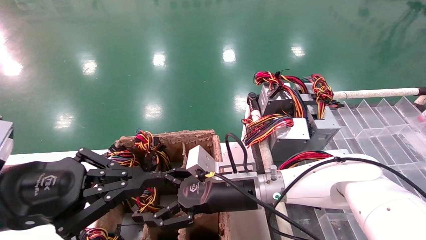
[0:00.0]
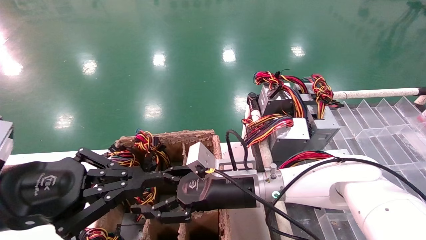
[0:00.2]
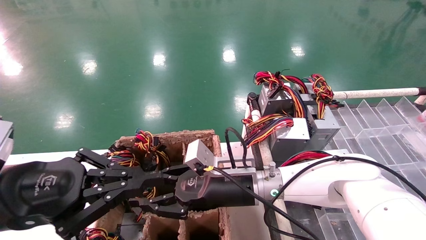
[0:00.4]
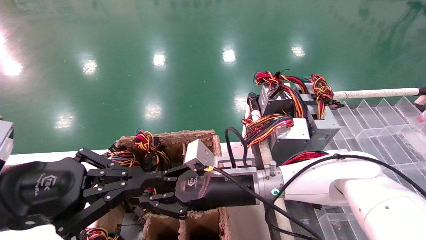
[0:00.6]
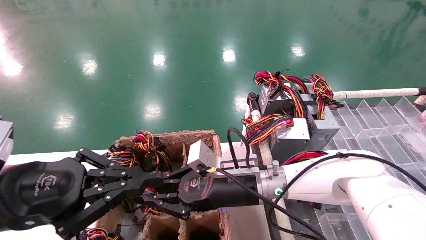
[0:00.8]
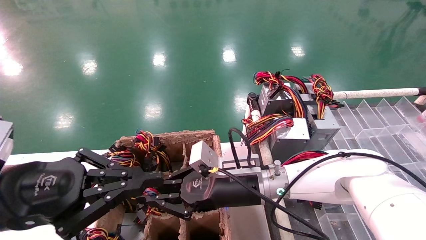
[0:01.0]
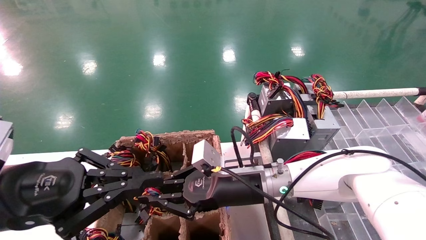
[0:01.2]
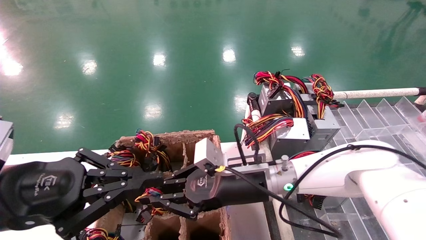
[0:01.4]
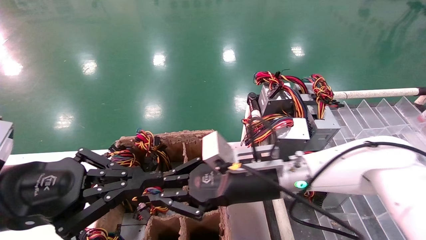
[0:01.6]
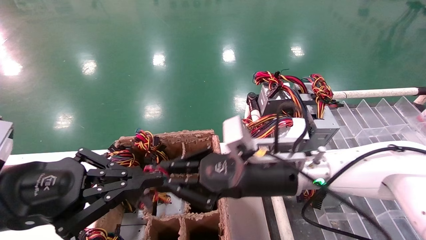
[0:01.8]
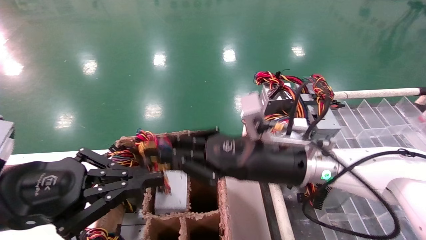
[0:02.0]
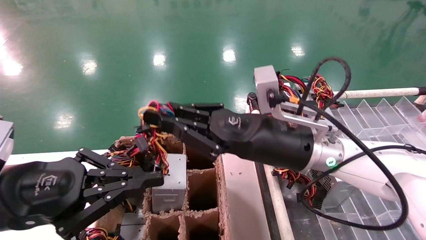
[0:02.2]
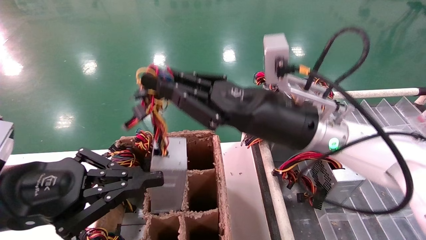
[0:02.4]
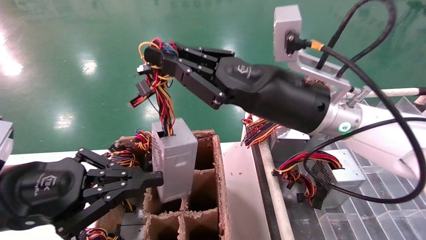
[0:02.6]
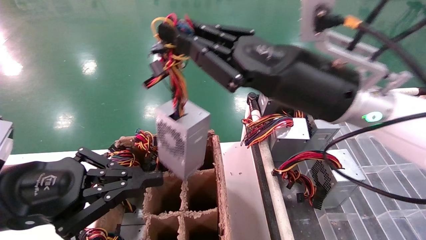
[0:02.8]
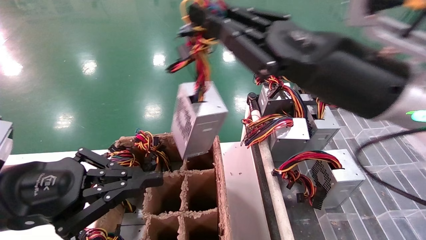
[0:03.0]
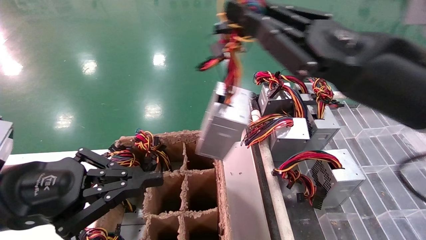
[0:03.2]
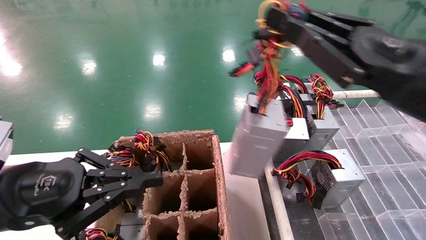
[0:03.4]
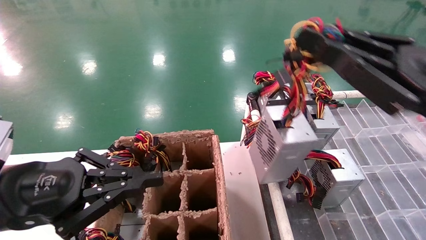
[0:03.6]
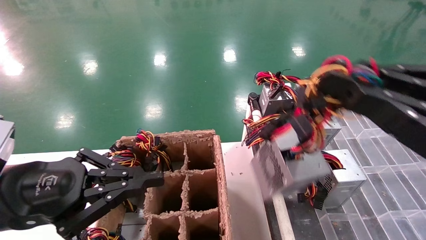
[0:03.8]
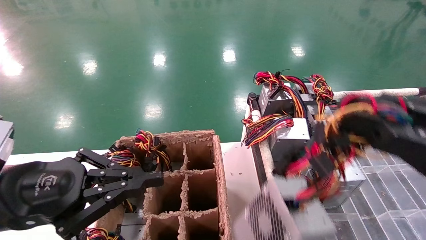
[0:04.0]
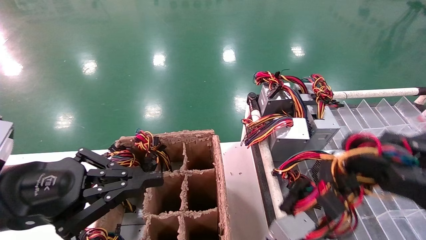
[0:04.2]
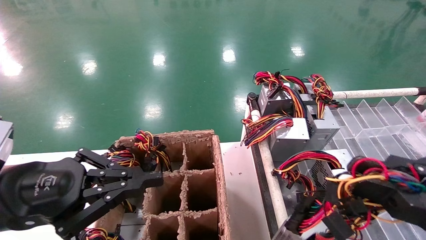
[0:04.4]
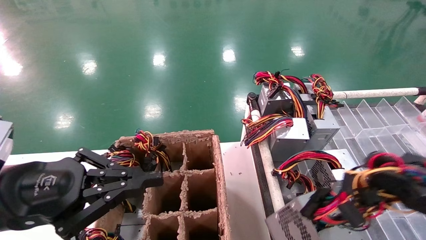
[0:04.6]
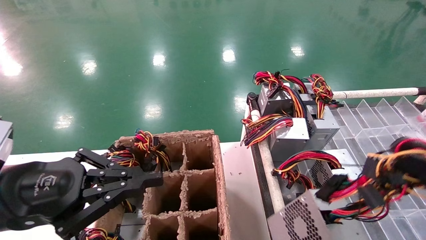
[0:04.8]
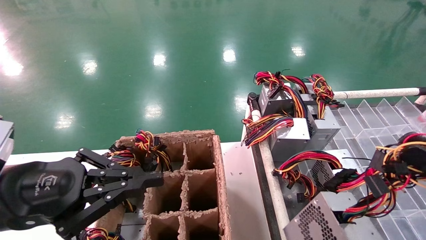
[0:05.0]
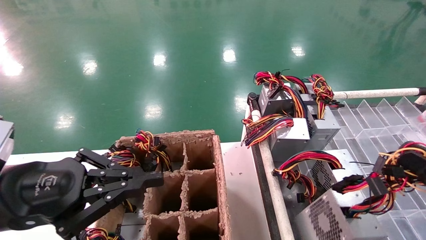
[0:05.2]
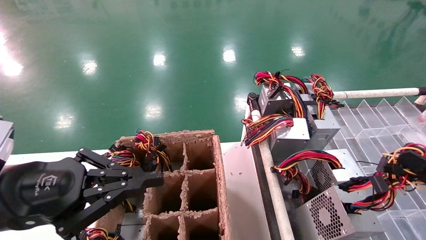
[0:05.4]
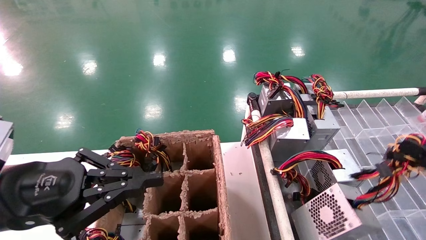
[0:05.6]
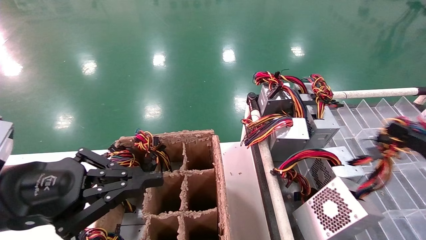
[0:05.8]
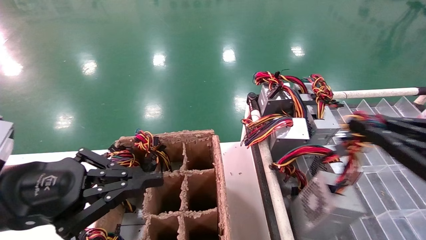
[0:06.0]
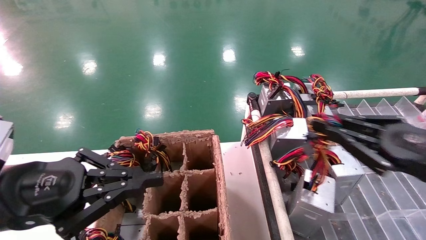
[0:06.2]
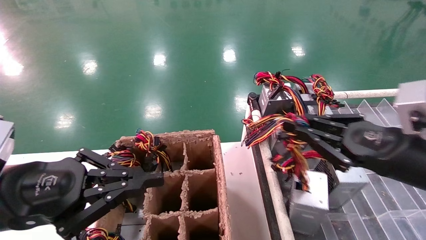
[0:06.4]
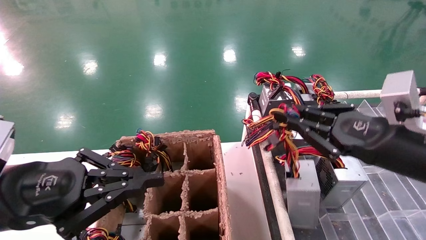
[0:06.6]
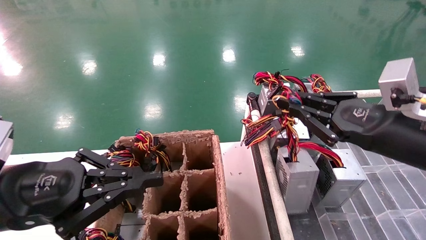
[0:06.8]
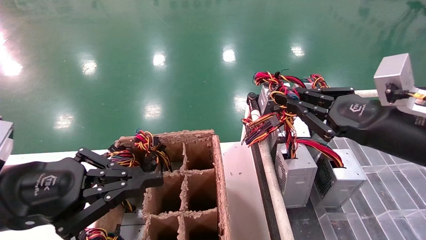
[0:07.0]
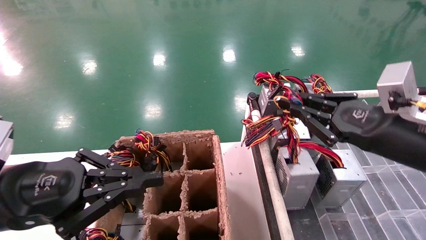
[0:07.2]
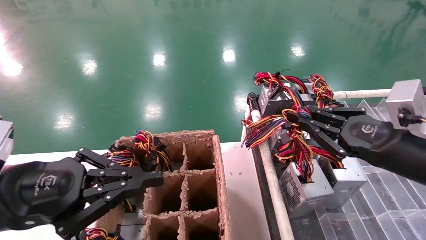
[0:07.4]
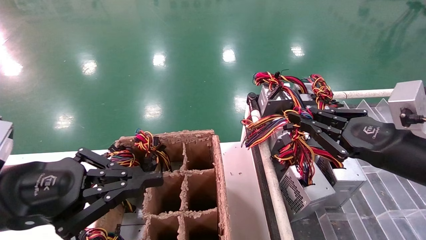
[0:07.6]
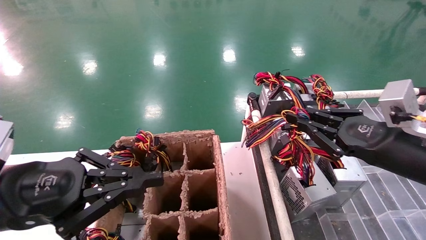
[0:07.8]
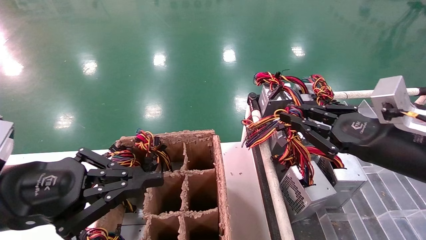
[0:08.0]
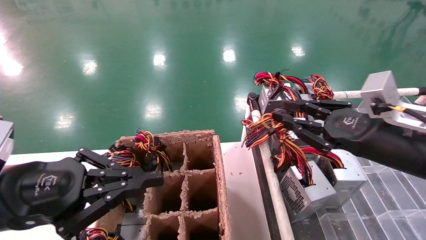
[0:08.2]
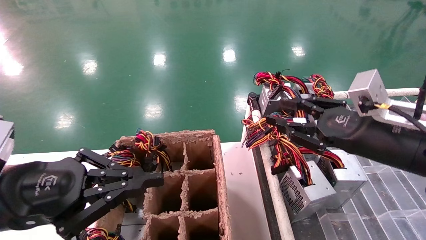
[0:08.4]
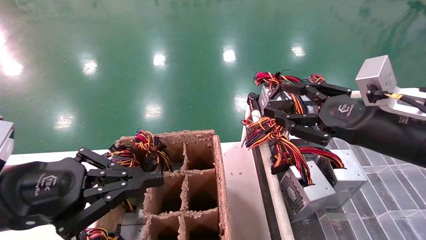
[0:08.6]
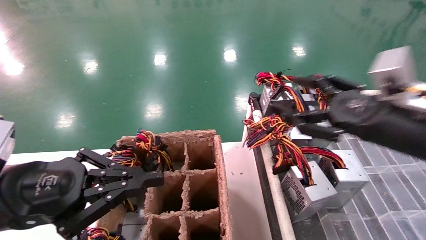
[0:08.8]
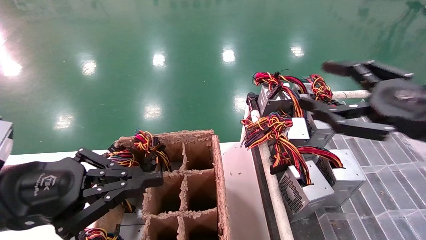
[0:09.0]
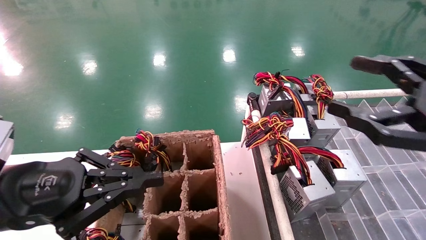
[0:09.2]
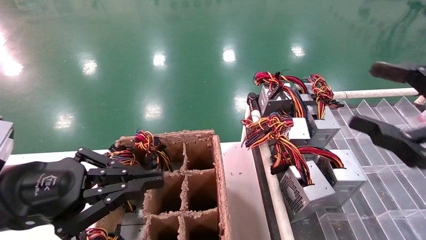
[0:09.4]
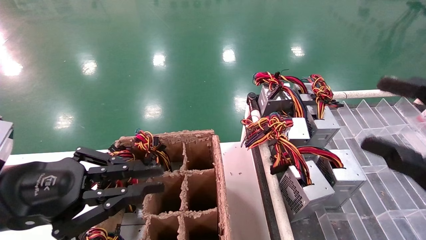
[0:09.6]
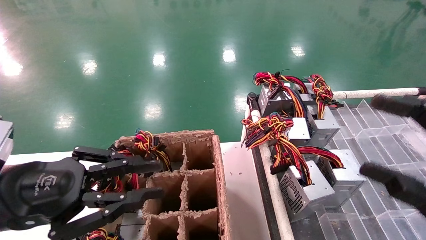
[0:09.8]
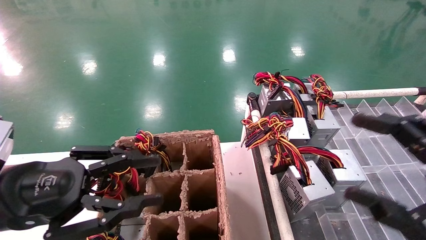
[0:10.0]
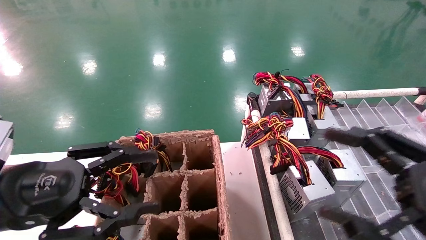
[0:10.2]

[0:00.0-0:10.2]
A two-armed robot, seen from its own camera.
Step, 0:01.0 to 0:08.0: Place the main unit power supply in the designated area.
0:00.0 to 0:01.4: The right gripper closes up.
0:01.4 to 0:03.0: The right gripper shifts some 20 cm upward, to the right and backward.
0:03.0 to 0:04.4: The right gripper goes some 25 cm backward, to the right and downward.
0:04.4 to 0:05.8: The right gripper goes roughly 5 cm to the right.
0:05.8 to 0:07.2: The right gripper travels forward and to the left by about 15 cm.
0:07.2 to 0:08.8: The right gripper opens up.
0:08.8 to 0:10.2: The left gripper opens its fingers; the right gripper is displaced backward and downward by some 10 cm, and opens up.

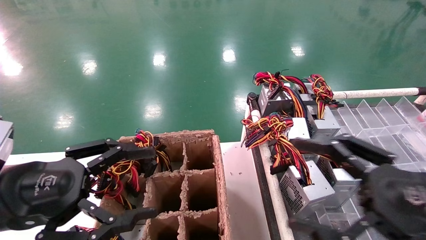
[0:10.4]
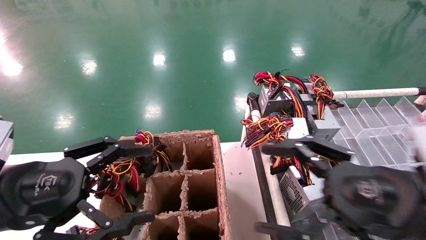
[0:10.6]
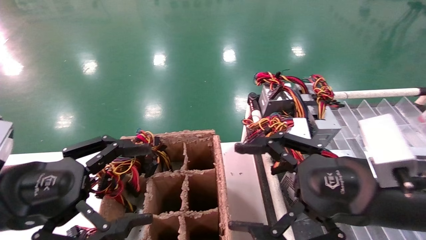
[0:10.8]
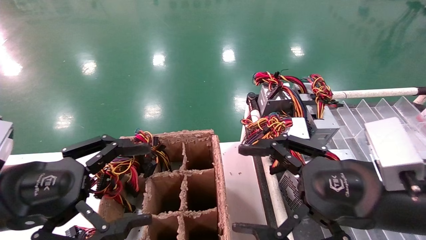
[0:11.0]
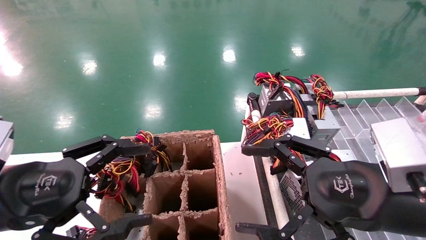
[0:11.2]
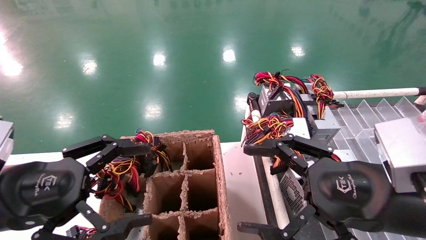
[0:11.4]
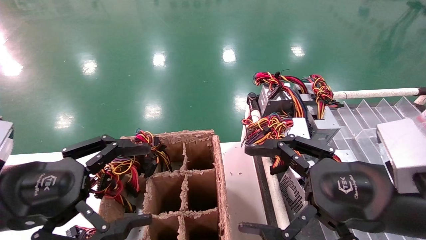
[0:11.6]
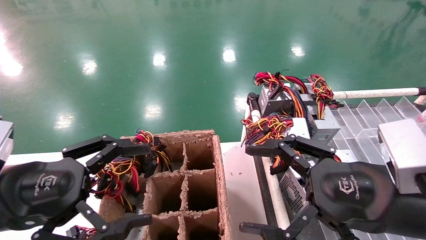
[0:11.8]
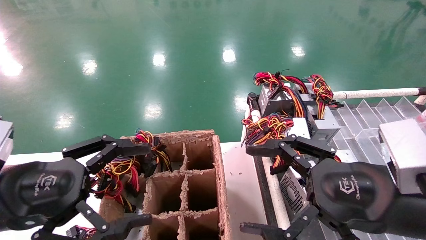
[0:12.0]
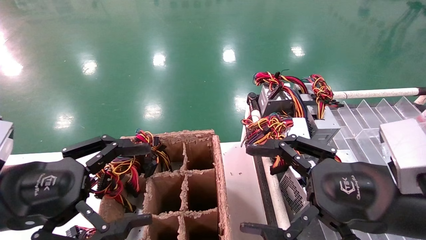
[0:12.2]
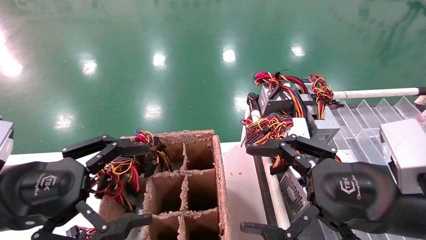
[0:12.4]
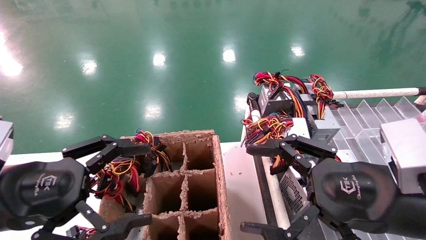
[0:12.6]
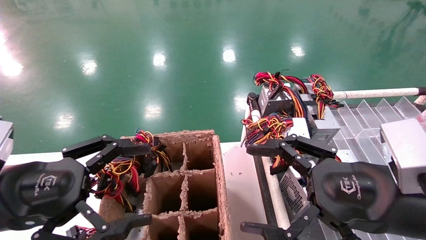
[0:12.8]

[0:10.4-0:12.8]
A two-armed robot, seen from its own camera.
0:10.4 to 0:11.6: The right gripper shifts by about 5 cm.
0:11.6 to 0:12.8: Both grippers stay put.
